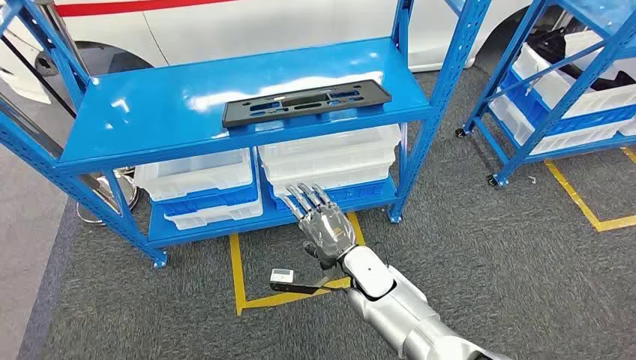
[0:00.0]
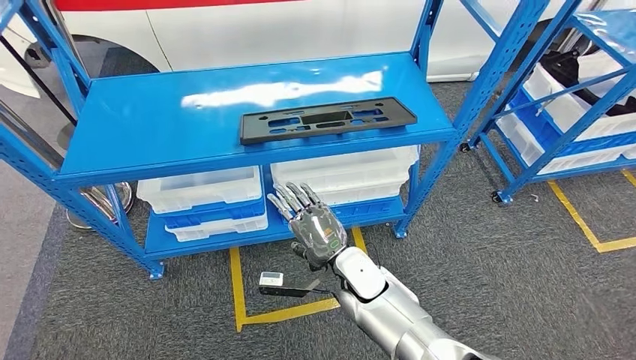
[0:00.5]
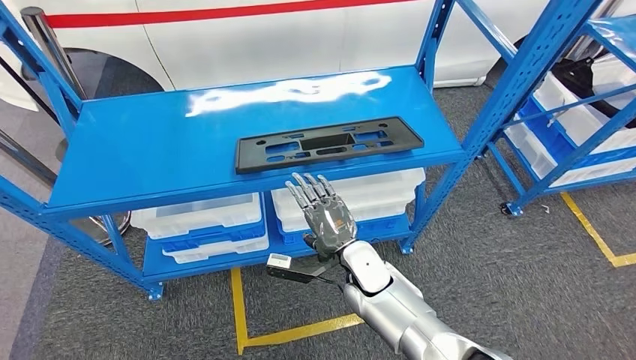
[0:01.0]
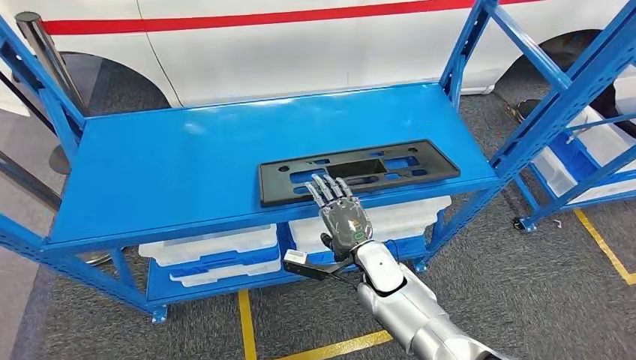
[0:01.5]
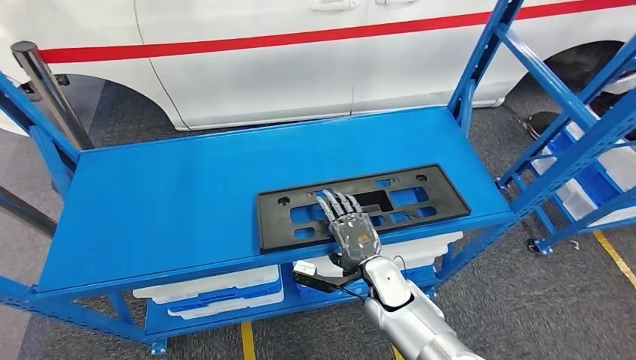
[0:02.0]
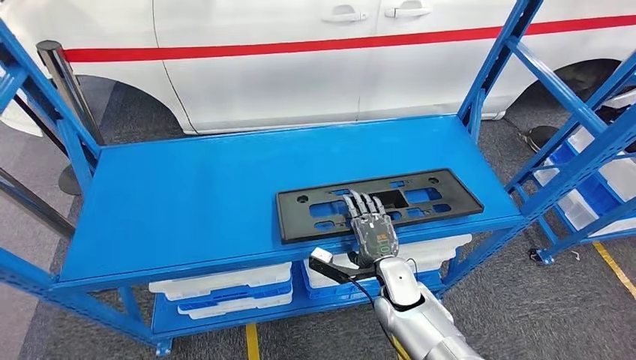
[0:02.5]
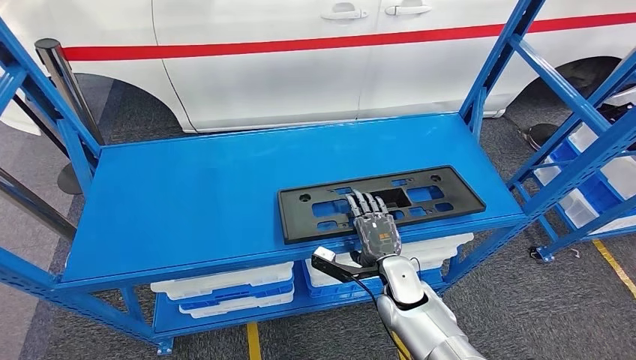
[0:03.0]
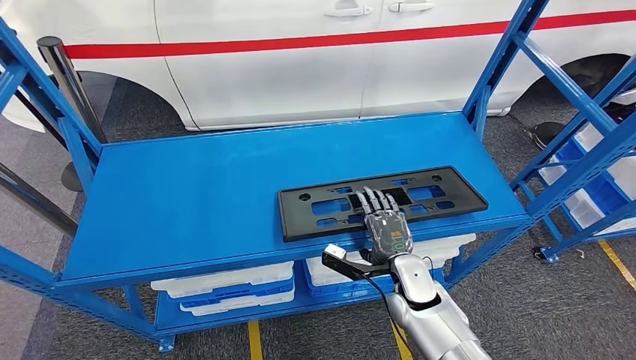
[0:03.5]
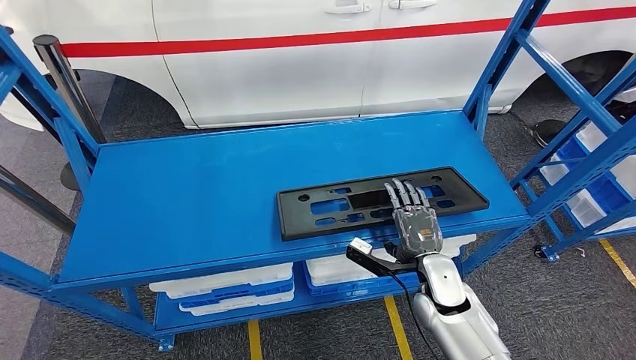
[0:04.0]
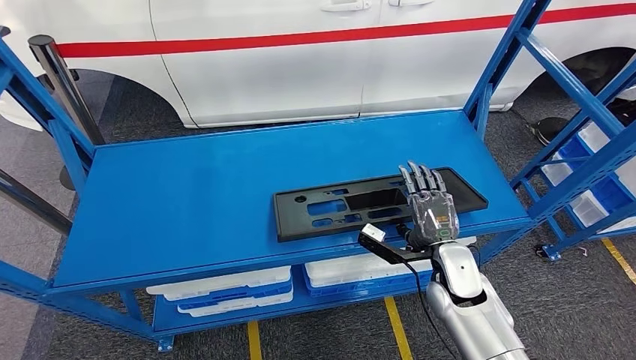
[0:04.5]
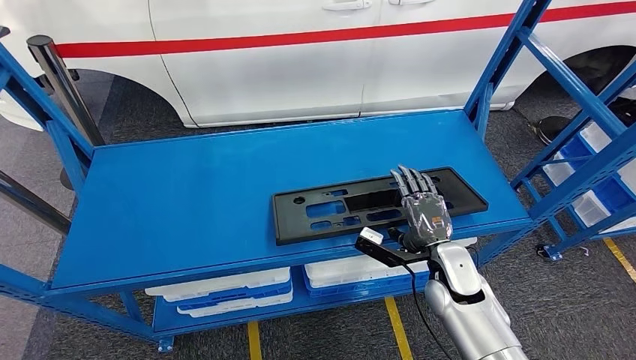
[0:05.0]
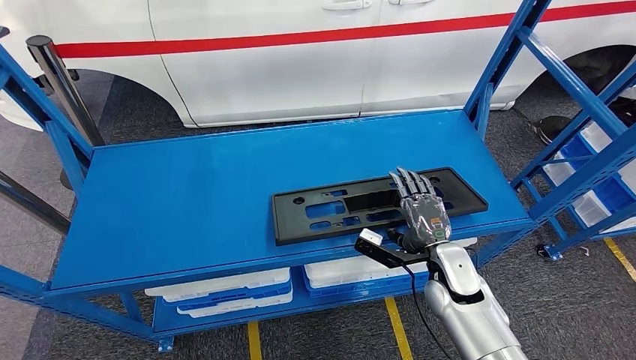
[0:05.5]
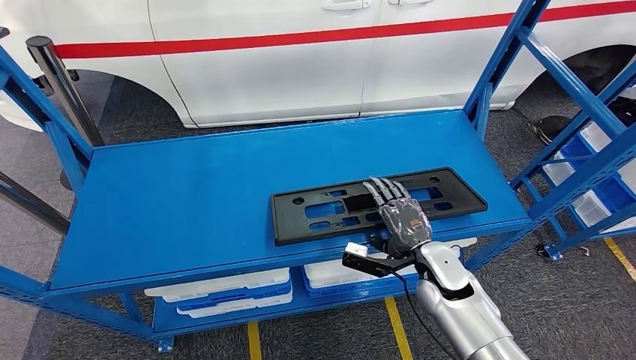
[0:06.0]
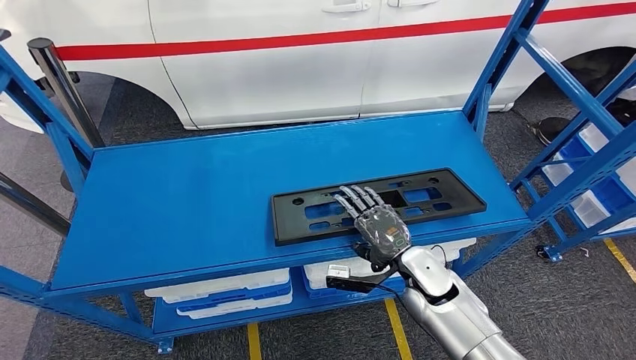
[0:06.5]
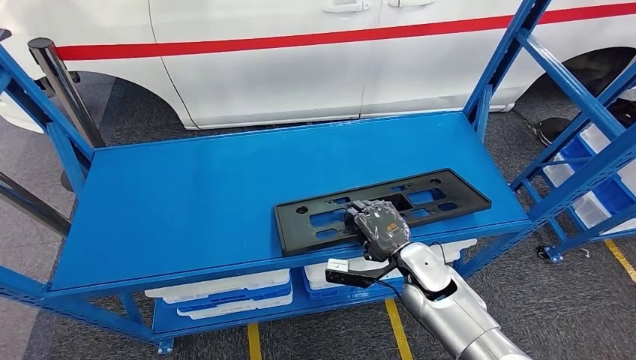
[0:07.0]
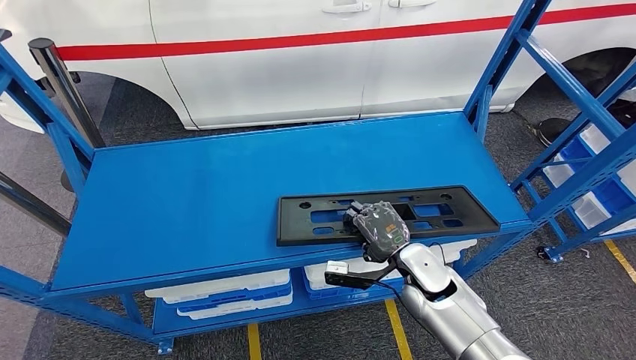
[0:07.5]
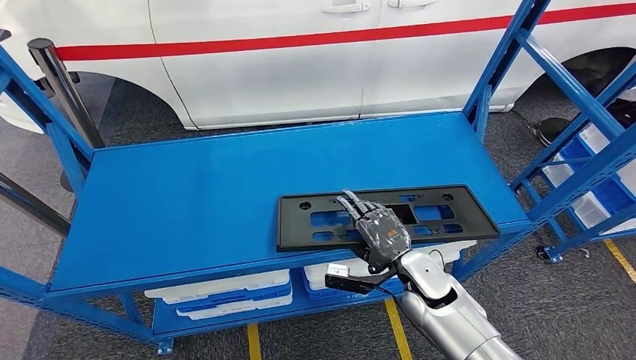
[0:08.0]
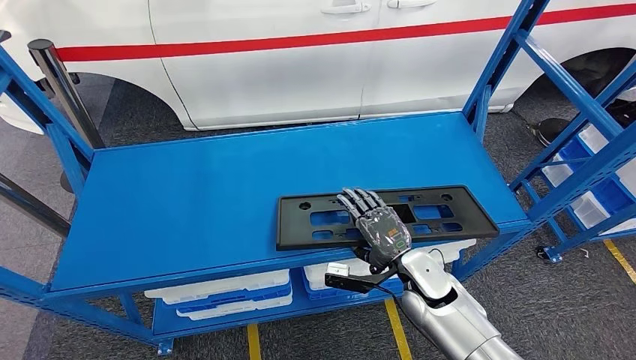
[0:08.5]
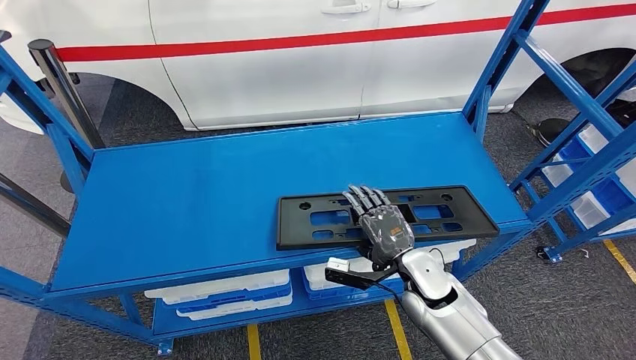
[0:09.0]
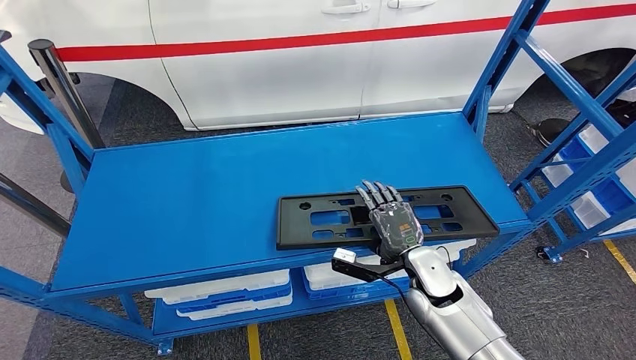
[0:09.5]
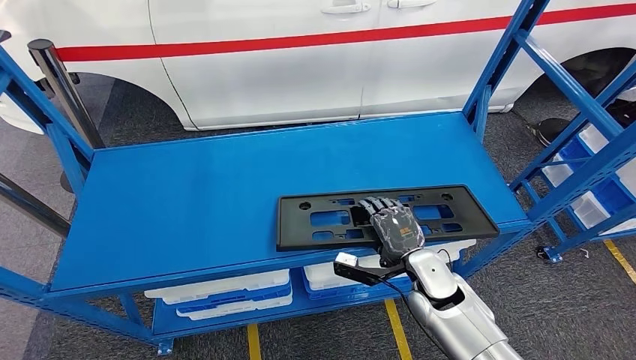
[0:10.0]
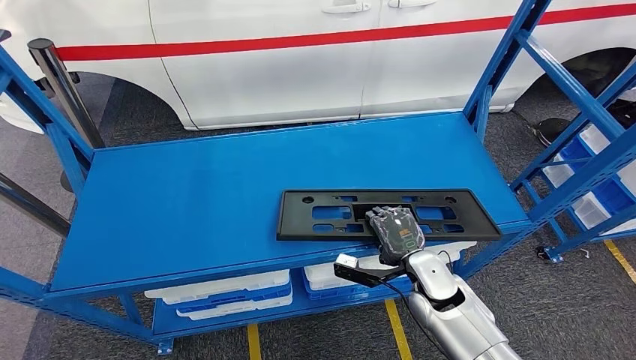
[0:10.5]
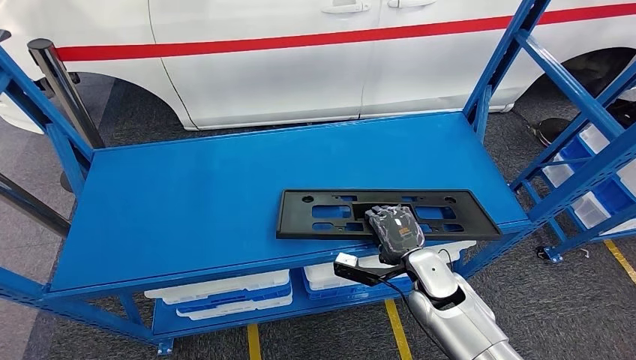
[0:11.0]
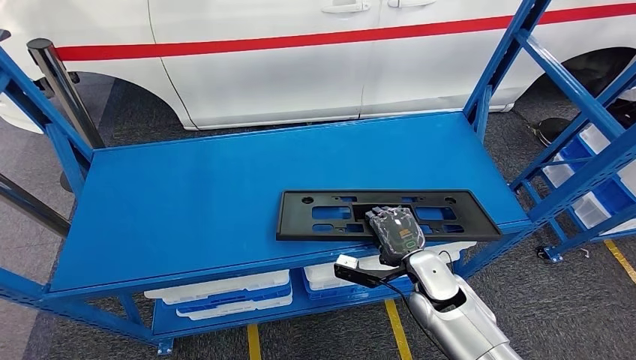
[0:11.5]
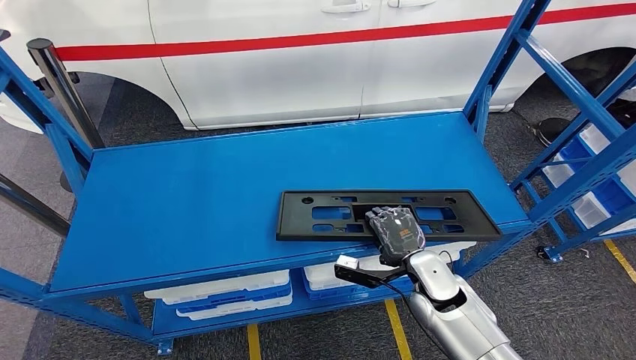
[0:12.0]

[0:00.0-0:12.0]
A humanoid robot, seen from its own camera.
0:04.0 to 0:06.0: The hands stay close to where they were, moving slightly.
0:06.0 to 0:12.0: The hands move only a little.

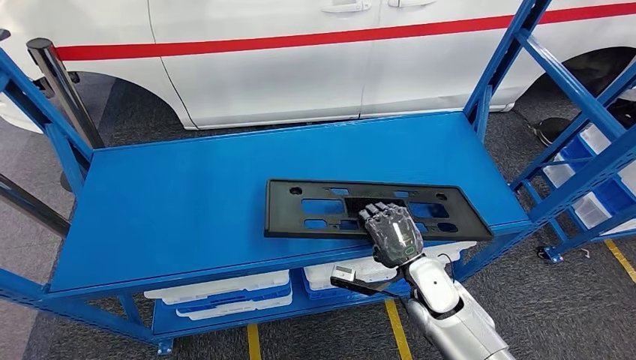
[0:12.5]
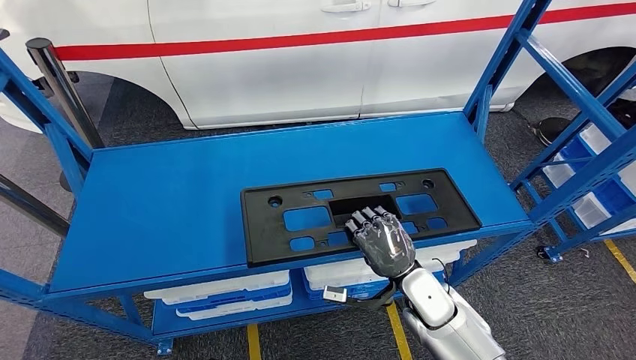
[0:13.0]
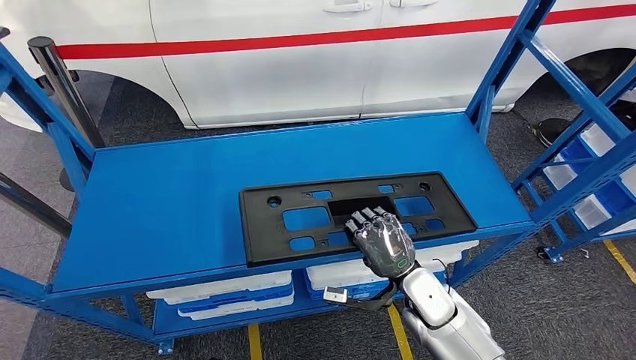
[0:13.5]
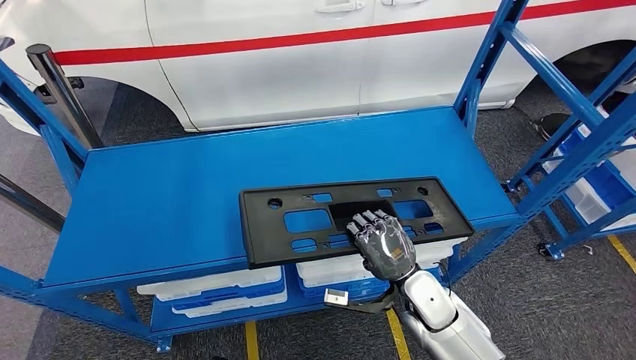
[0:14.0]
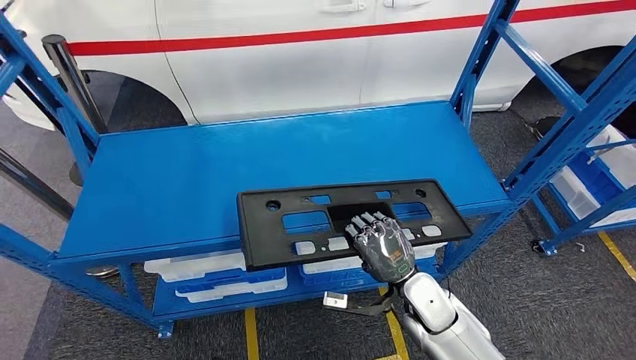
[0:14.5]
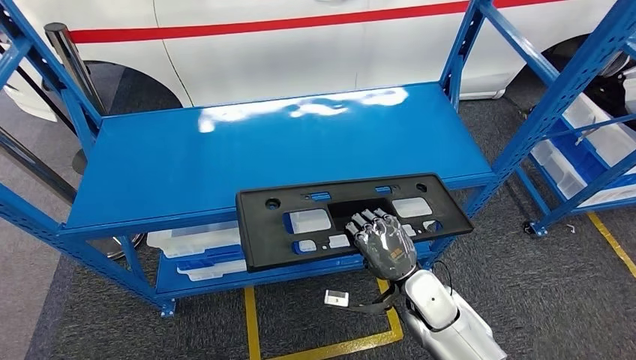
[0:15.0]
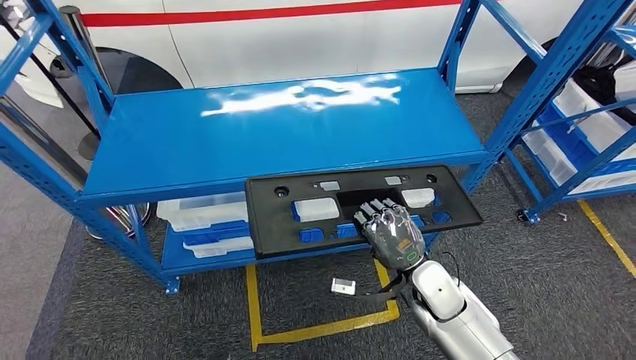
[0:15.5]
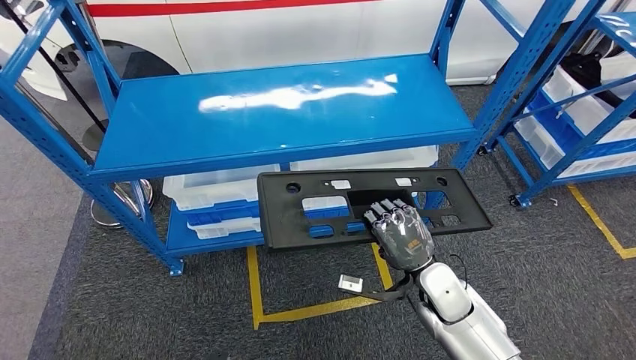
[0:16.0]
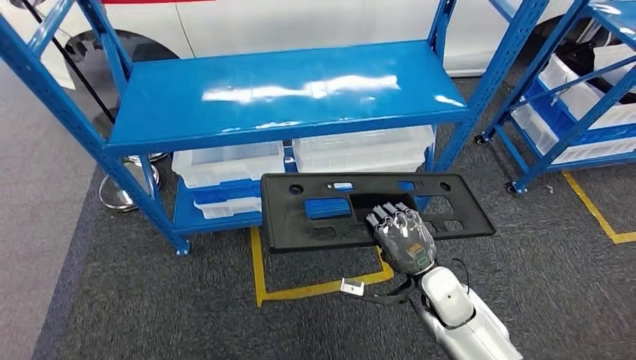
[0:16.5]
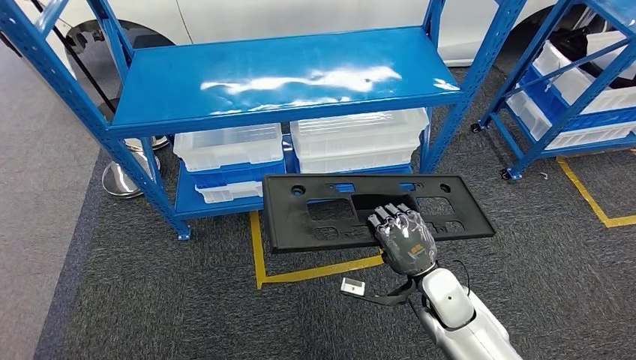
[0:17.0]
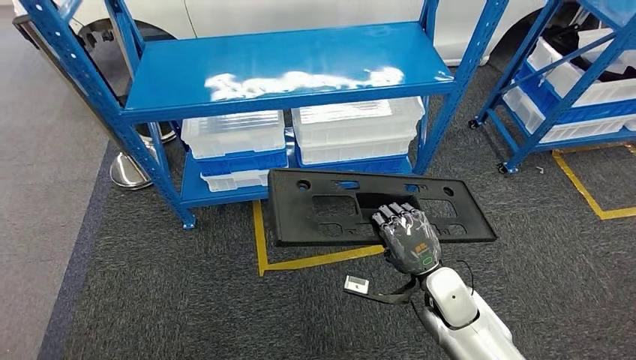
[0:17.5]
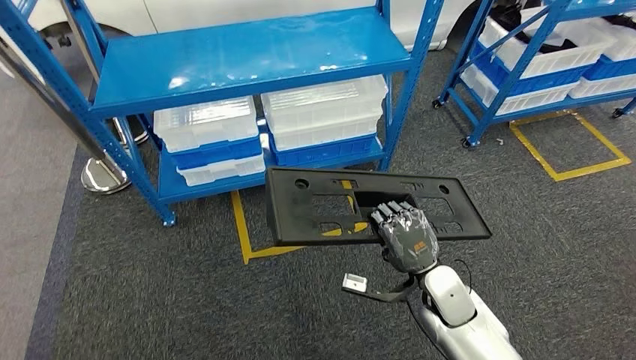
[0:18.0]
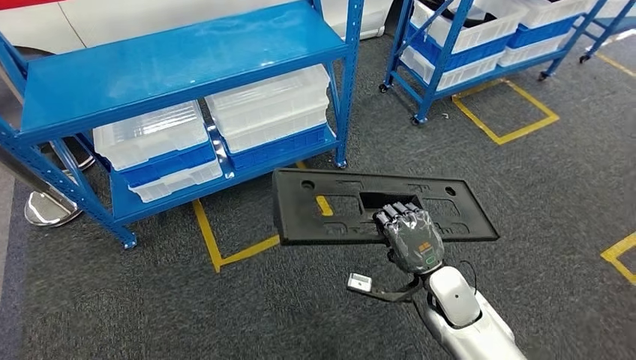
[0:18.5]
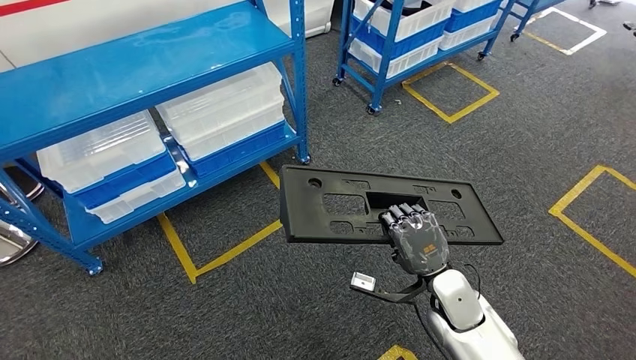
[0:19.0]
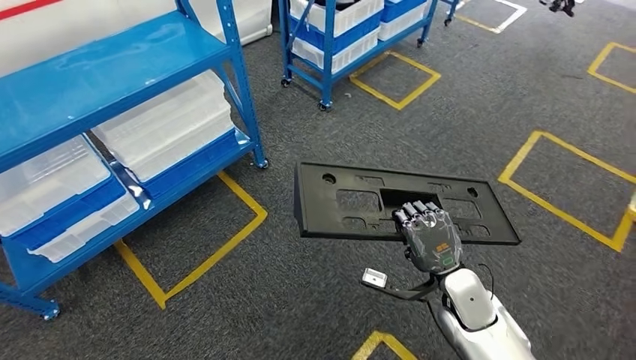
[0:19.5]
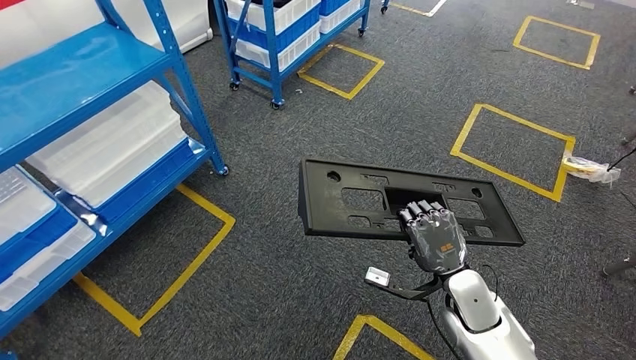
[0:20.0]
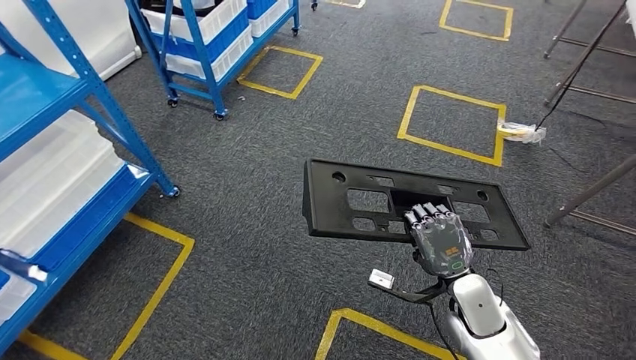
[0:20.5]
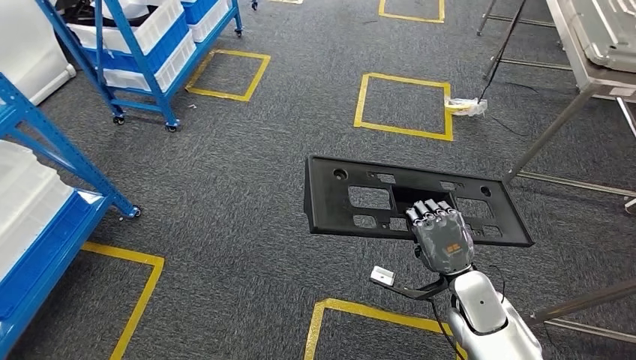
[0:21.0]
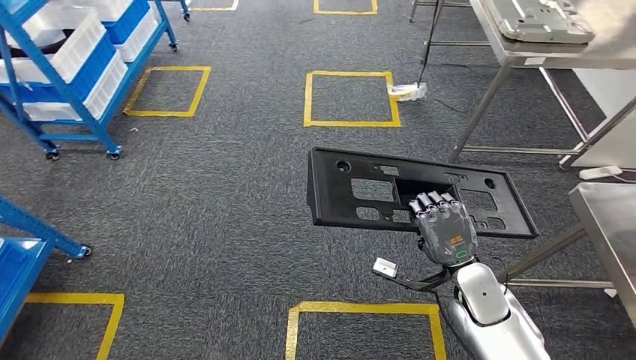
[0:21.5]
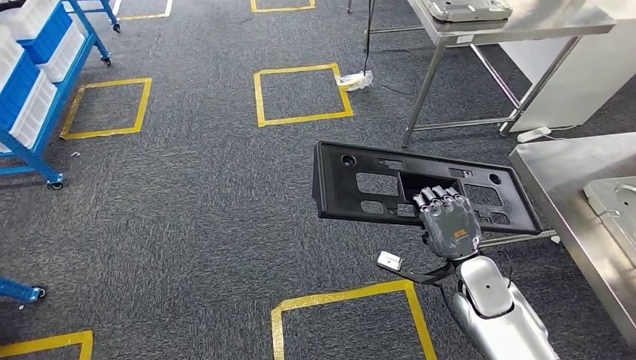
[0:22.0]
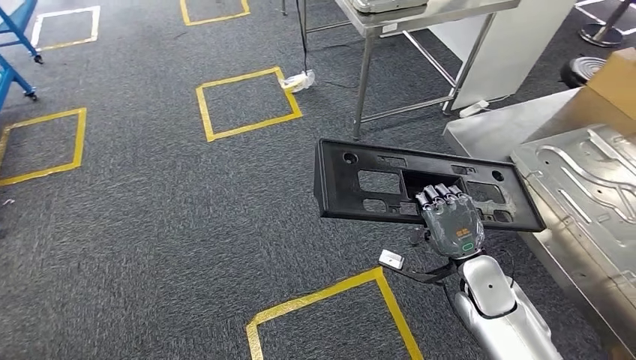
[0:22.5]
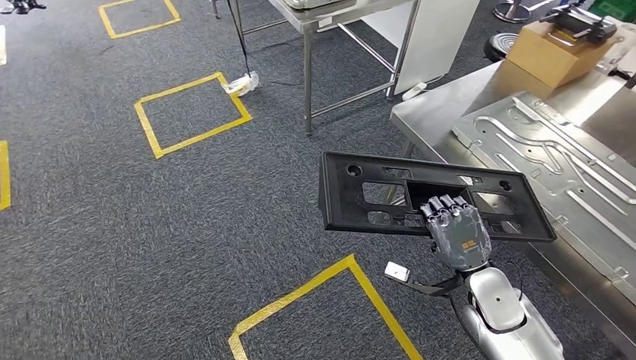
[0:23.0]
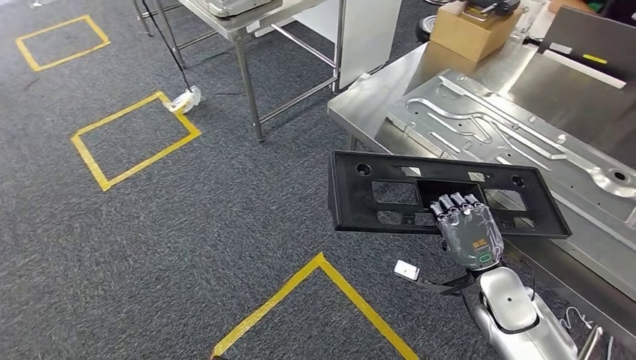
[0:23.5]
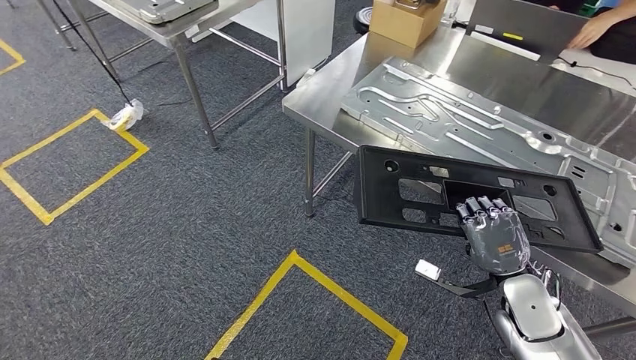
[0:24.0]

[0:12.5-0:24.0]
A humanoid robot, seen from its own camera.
Step, 0:12.5 to 0:14.5: Pick up the large parts from the shelf.
